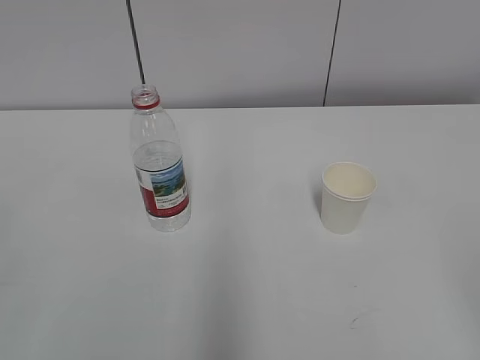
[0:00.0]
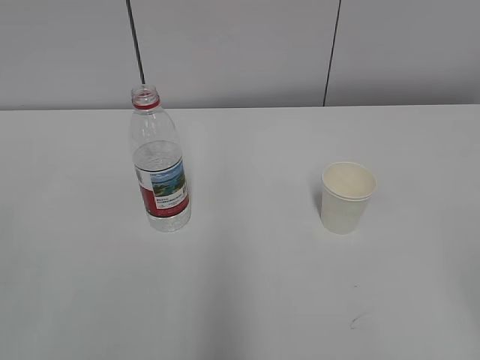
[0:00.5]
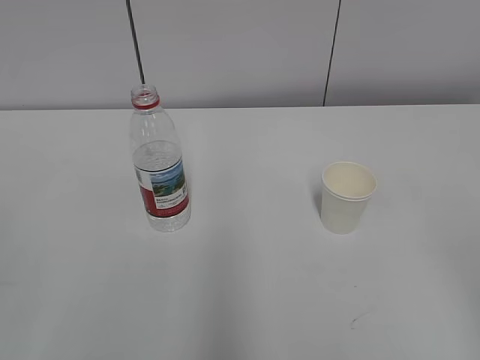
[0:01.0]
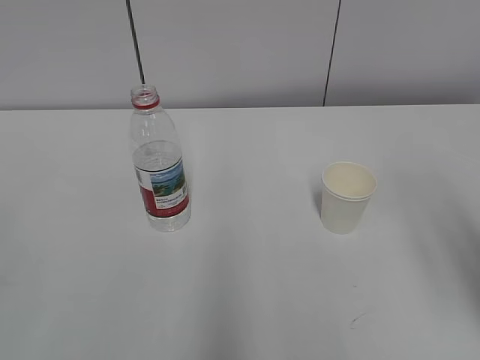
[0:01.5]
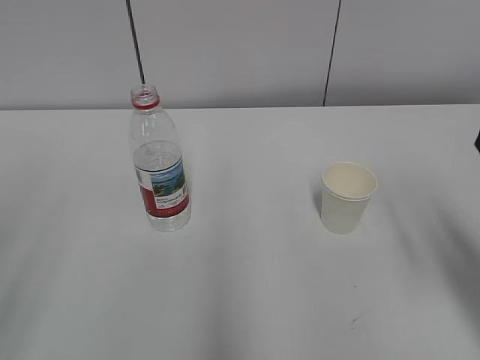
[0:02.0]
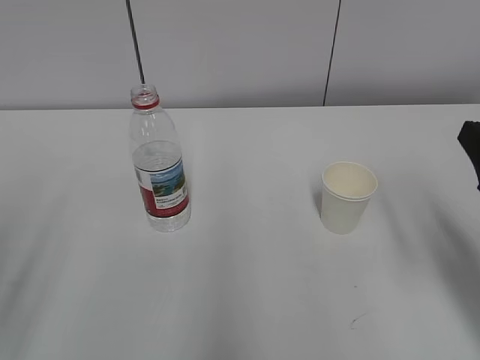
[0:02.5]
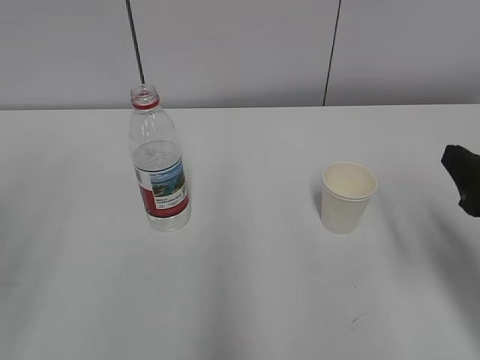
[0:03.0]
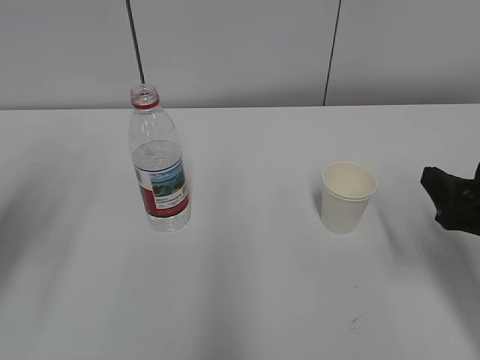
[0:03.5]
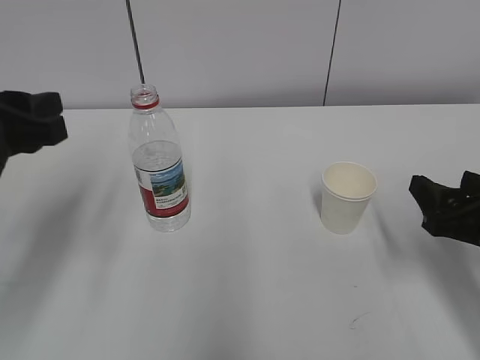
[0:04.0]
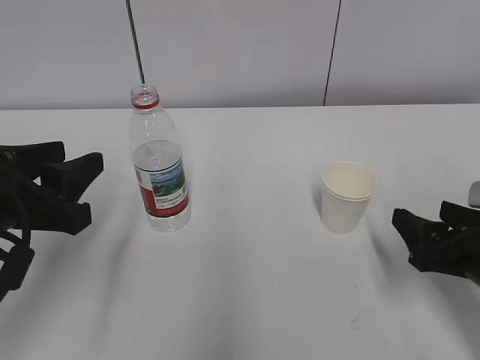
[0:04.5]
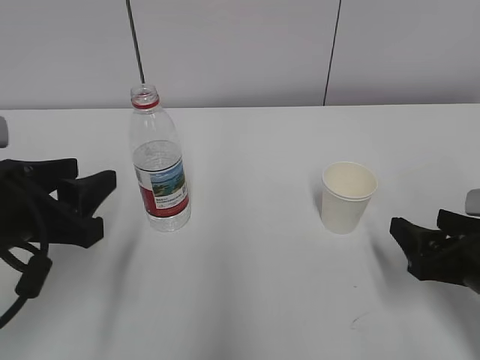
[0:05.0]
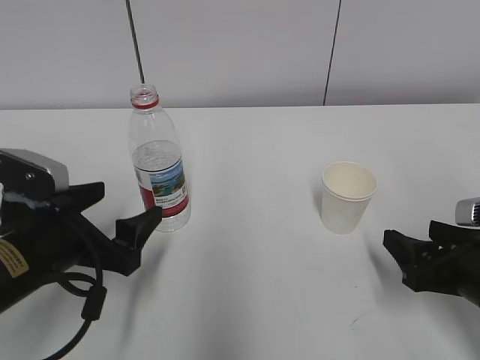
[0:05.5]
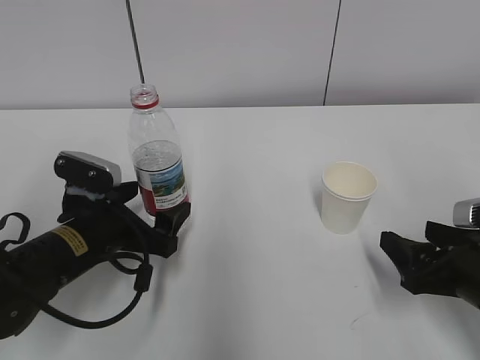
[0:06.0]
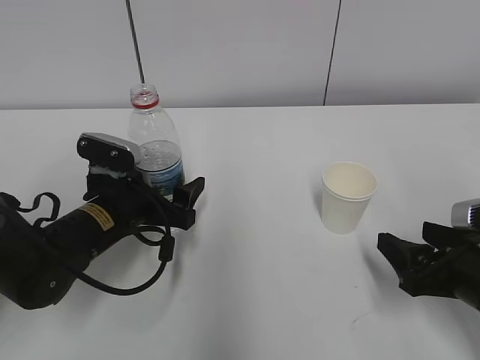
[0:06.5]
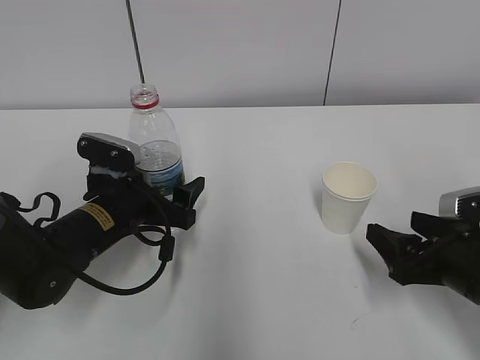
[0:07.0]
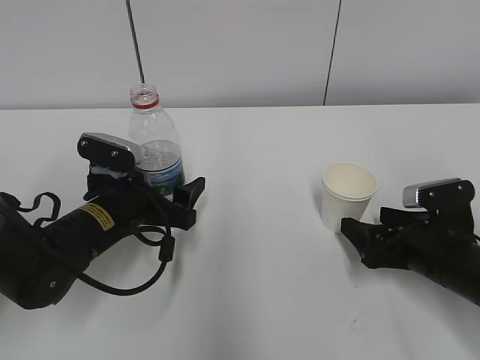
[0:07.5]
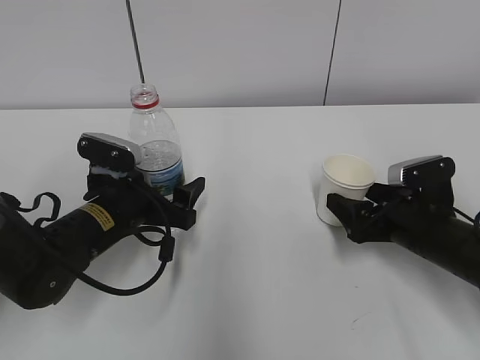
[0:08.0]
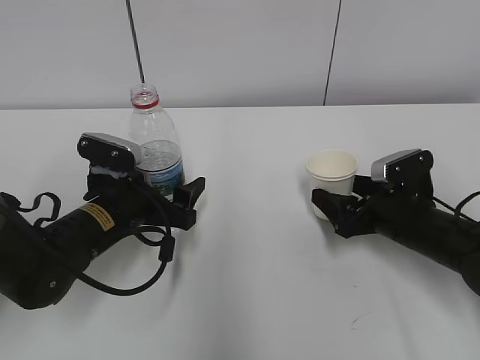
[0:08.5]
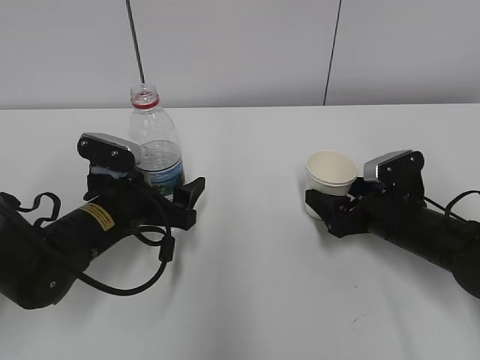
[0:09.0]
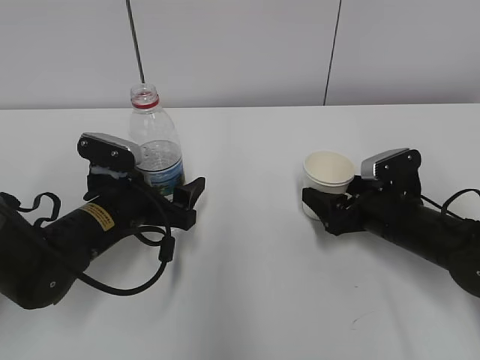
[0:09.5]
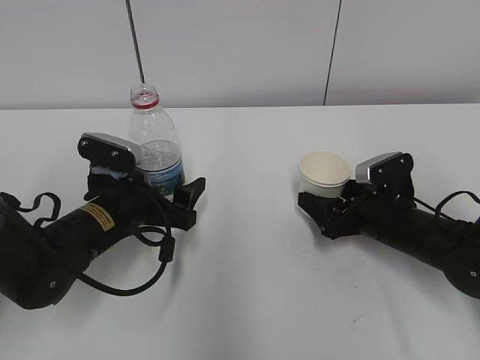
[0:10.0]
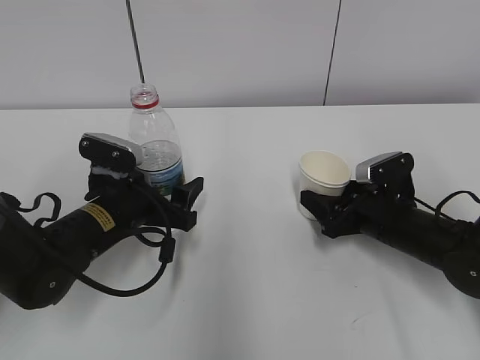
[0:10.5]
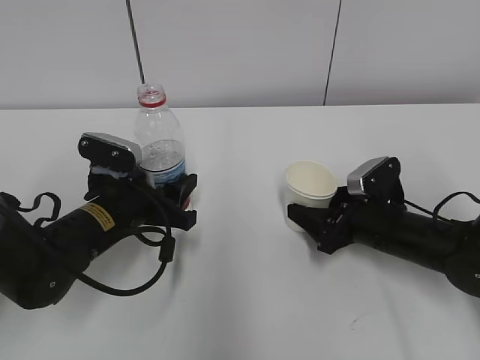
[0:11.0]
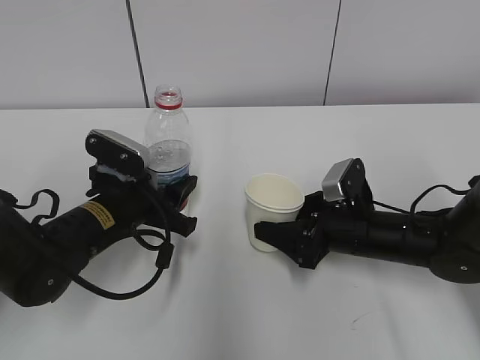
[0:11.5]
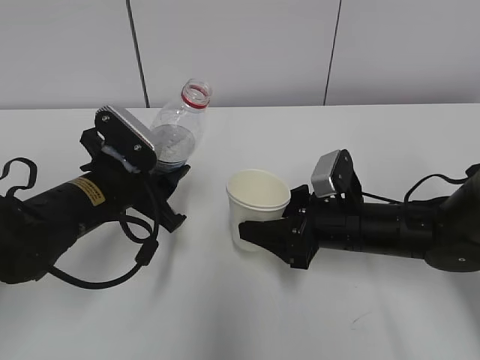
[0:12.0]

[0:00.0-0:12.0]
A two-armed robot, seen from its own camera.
Step, 0:00.0 to 0:09.0: Grab the paper cup with the right hand.
0:02.0 to 0:04.0: The left gripper heads forward and downward, covering approximately 20 cm. The right gripper travels downward and forward by approximately 10 cm.
0:04.0 to 0:06.0: The left gripper shifts roughly 15 cm downward, and opens, while the right gripper shifts by about 5 cm.
0:06.0 to 0:08.0: The right gripper moves forward, about 10 cm.
0:08.0 to 0:10.0: The grippers stay close to where they were, moving slightly.
0:10.0 to 0:12.0: The right gripper is displaced to the left by about 5 cm, and closes. The left gripper closes.

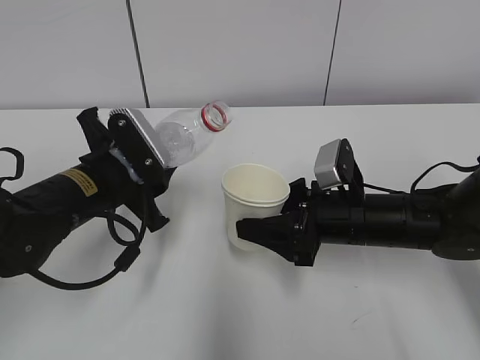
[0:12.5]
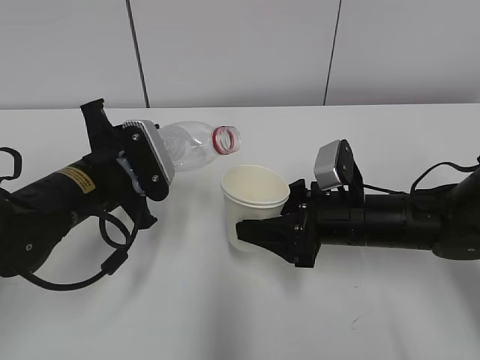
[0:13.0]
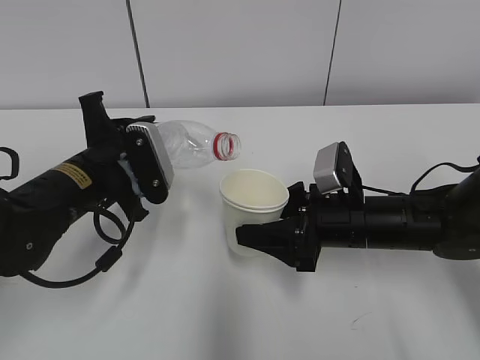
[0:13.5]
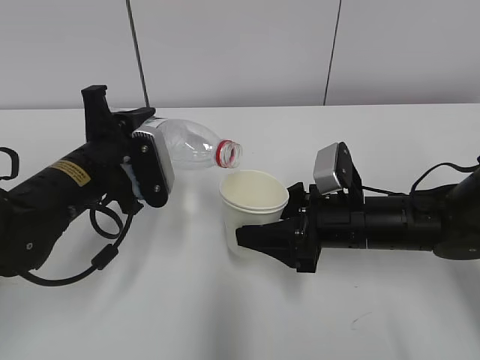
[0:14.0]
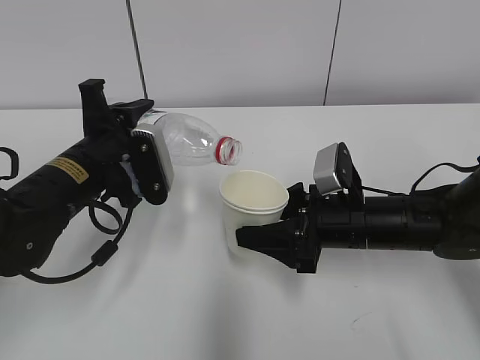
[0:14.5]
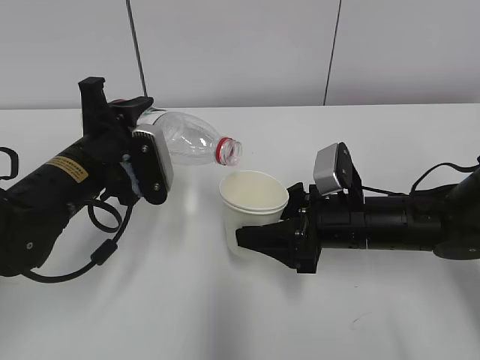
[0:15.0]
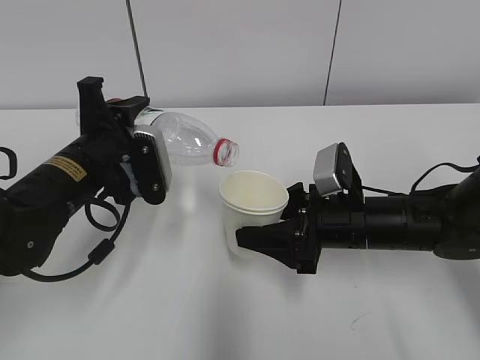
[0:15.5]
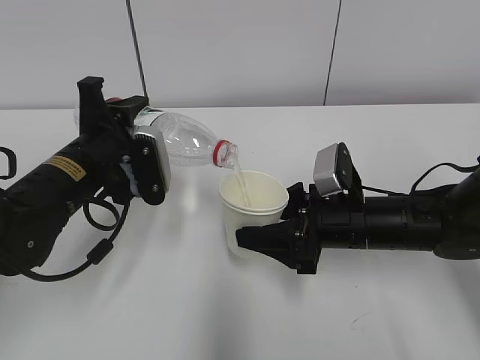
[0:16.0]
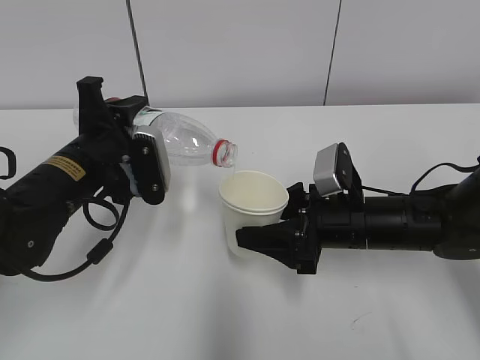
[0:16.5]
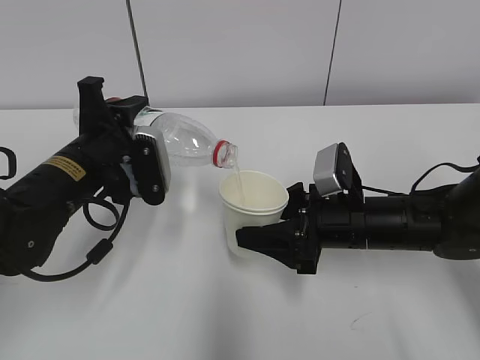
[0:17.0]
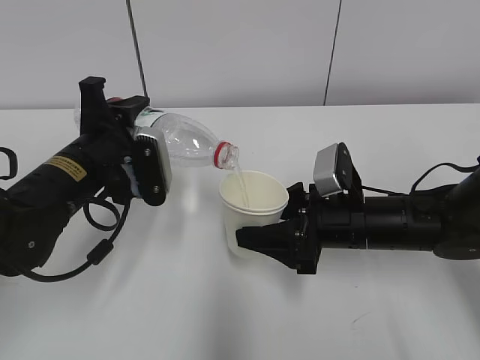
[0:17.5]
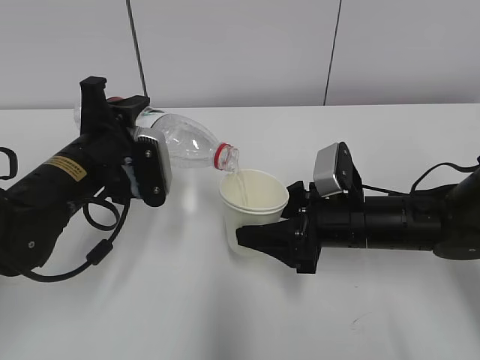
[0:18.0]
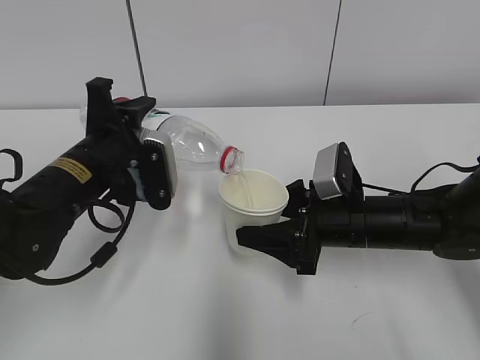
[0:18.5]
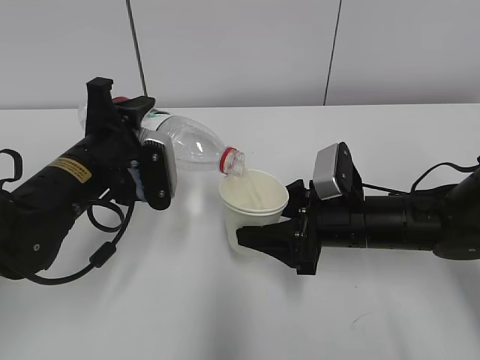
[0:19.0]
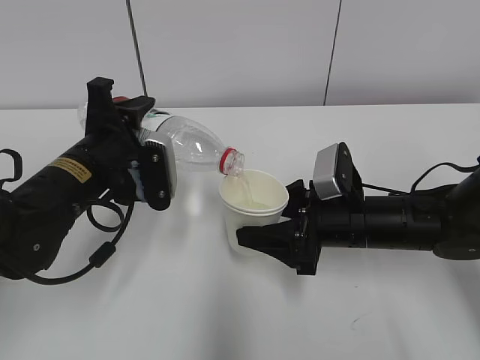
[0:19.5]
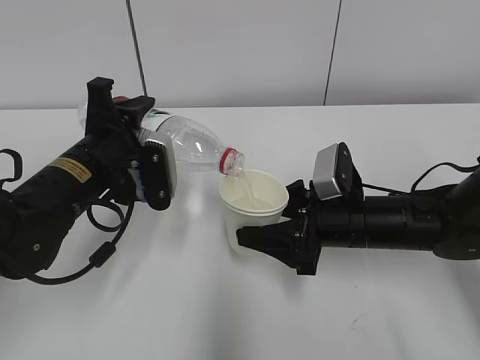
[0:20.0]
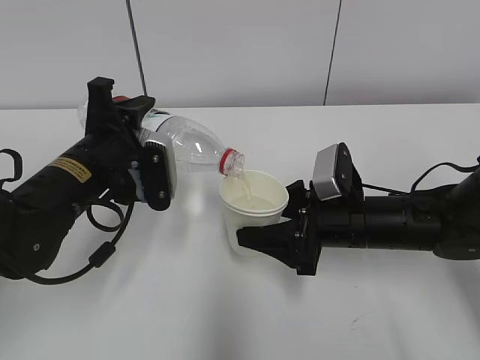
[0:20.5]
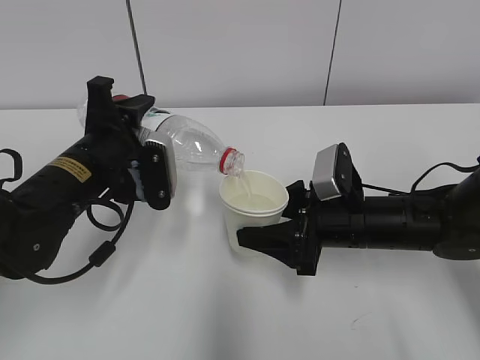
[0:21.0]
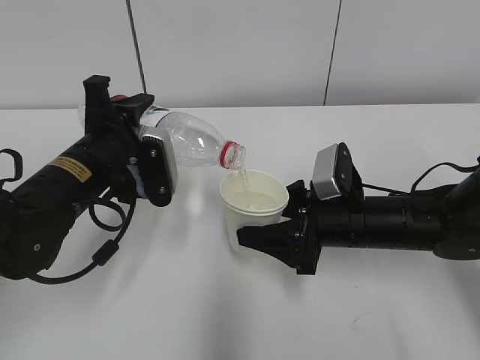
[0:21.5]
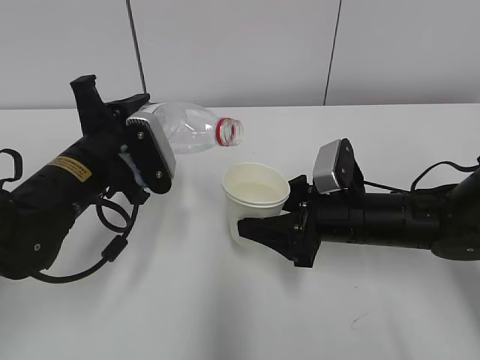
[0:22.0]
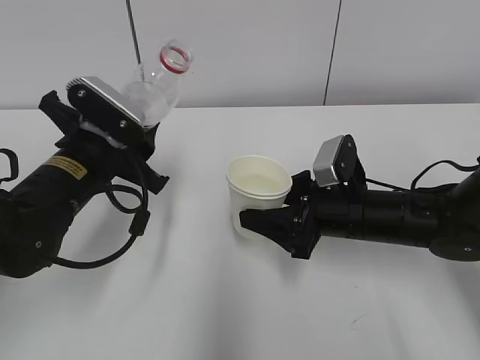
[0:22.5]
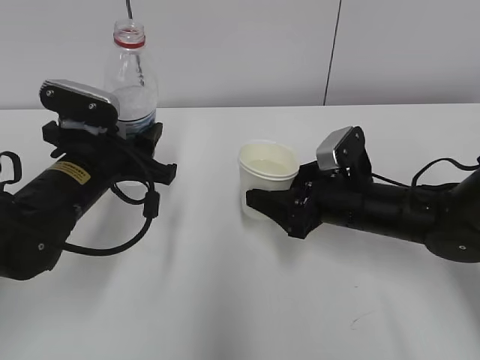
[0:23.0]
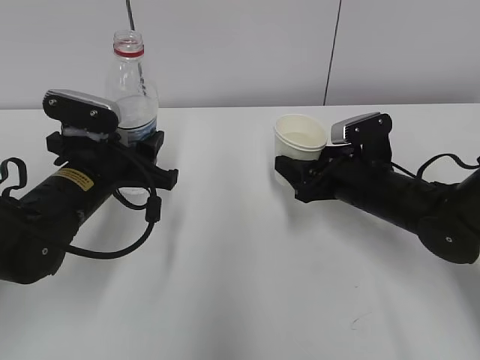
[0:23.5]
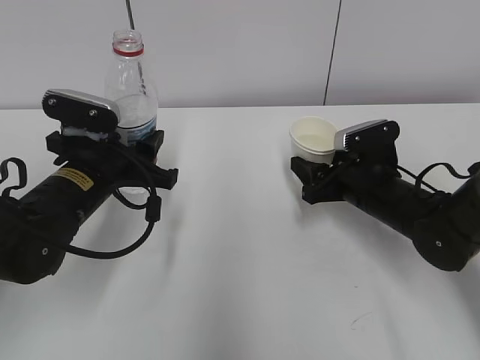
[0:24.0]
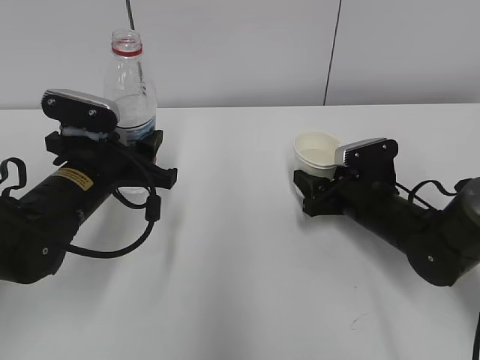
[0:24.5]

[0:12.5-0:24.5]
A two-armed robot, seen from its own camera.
Step, 0:13.5 to 0:18.0: Pour water with the left hand.
Step, 0:21.5 to 0:24.0: Place the water bottle with the left hand.
0:14.5 to 0:16.5: The grippers stay close to where they were, moving slightly.
0:16.5 to 0:20.5: Both grippers stay put.
0:22.5 to 0:24.5: The right gripper moves roughly 5 cm.

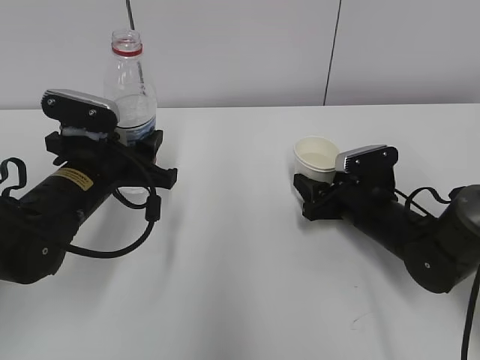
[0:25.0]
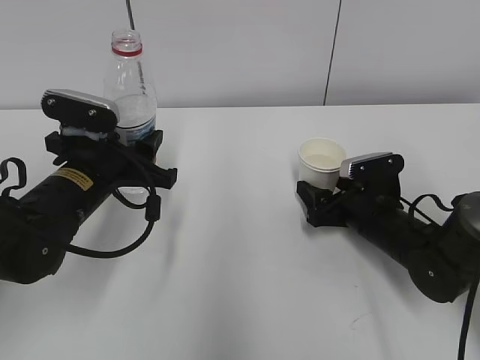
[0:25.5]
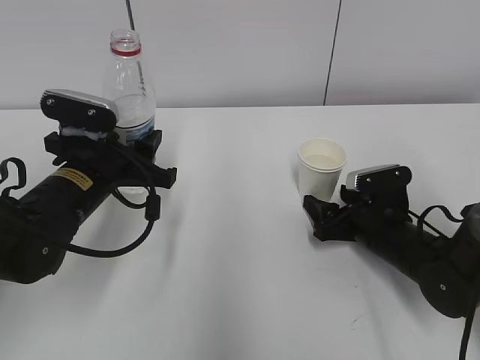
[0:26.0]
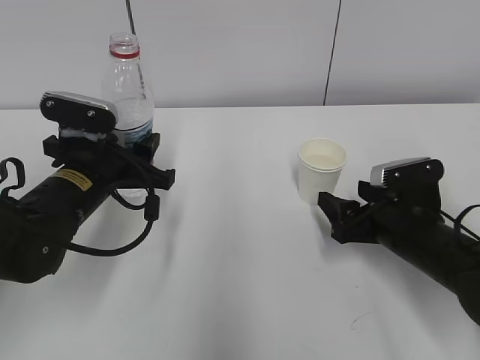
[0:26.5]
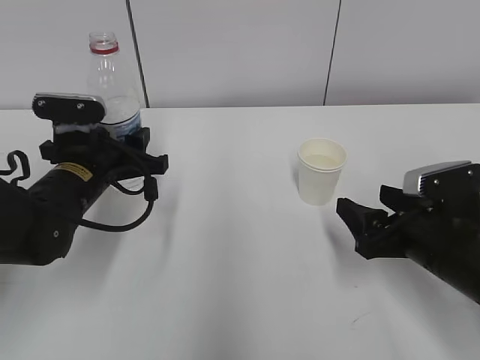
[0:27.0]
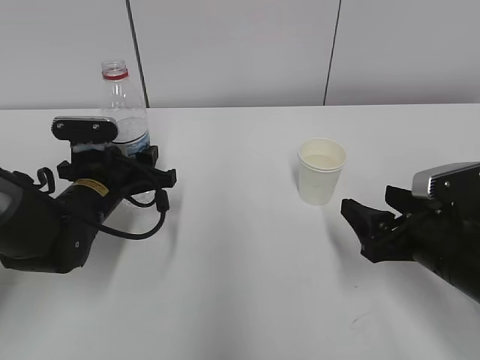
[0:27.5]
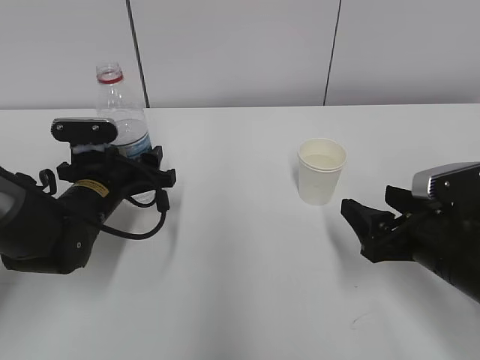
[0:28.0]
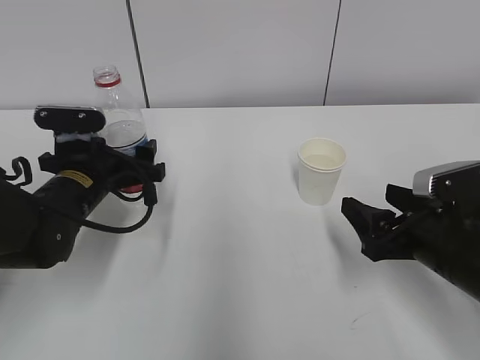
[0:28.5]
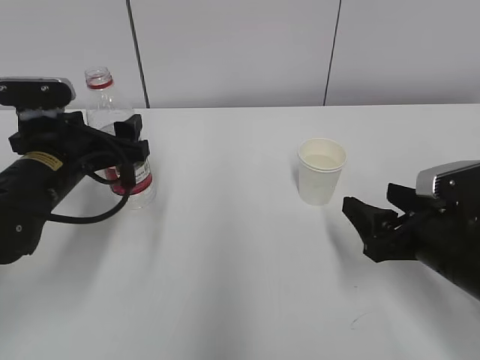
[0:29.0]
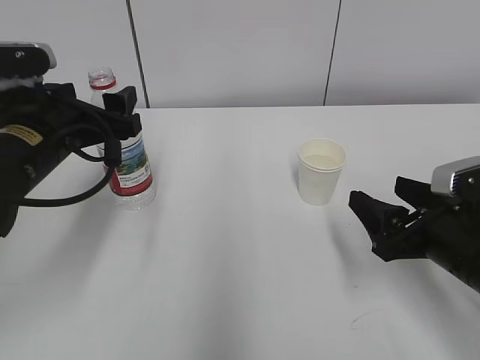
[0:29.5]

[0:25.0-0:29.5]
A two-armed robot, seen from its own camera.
0:25.0 to 0:27.0: The right gripper shifts some 10 cm backward and upward, and opens up.
0:27.0 to 0:29.5: The left gripper shifts roughly 5 cm upward, and opens.
